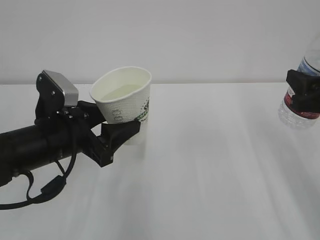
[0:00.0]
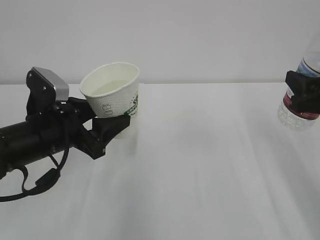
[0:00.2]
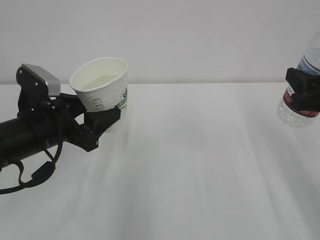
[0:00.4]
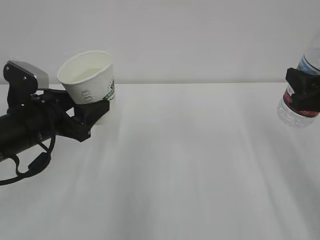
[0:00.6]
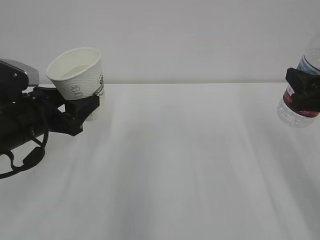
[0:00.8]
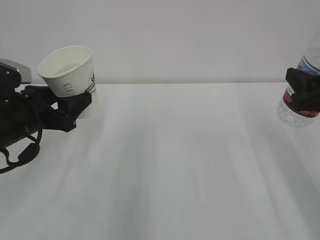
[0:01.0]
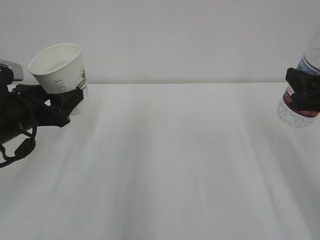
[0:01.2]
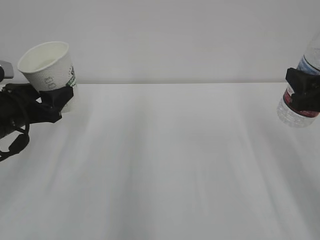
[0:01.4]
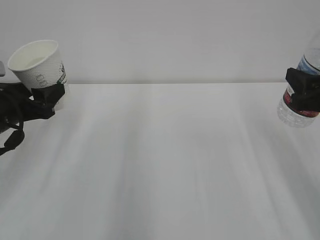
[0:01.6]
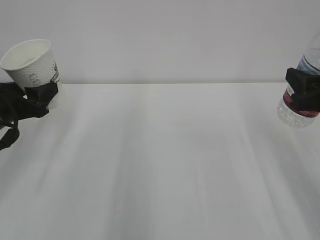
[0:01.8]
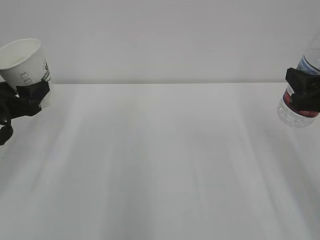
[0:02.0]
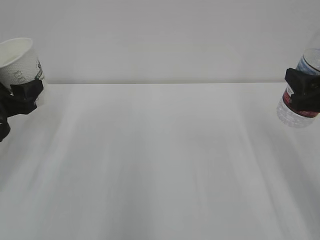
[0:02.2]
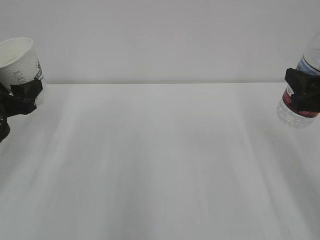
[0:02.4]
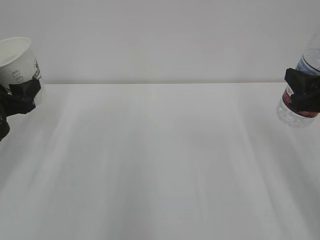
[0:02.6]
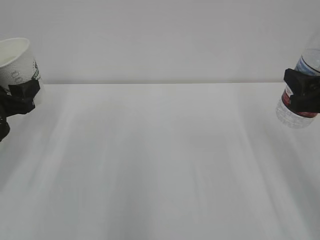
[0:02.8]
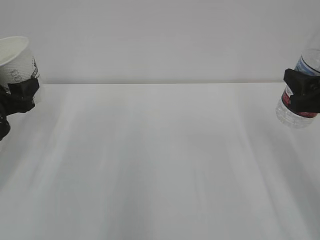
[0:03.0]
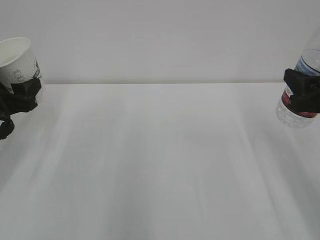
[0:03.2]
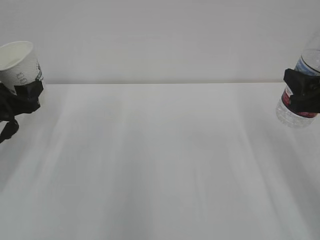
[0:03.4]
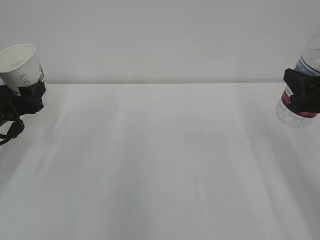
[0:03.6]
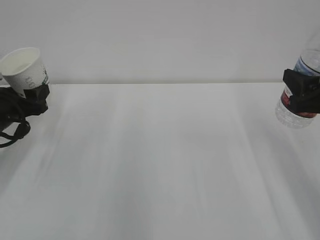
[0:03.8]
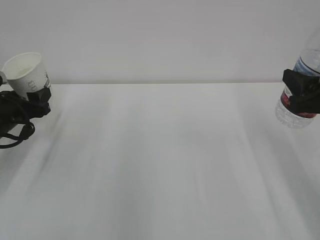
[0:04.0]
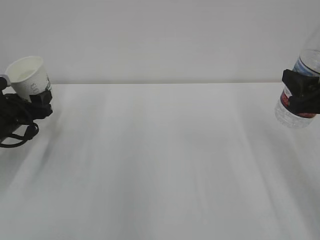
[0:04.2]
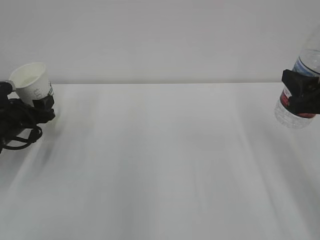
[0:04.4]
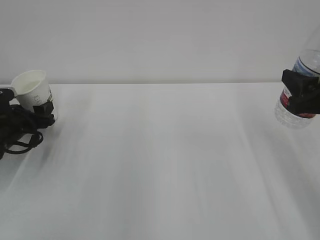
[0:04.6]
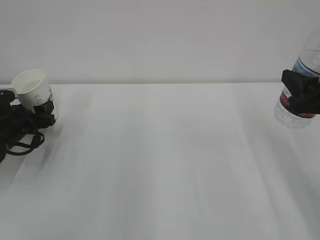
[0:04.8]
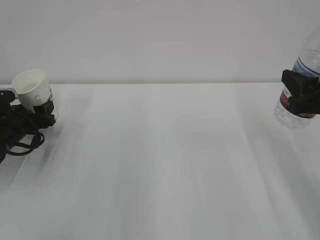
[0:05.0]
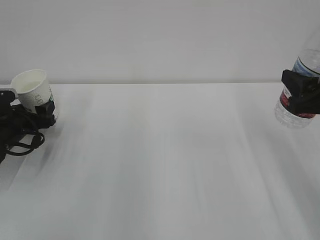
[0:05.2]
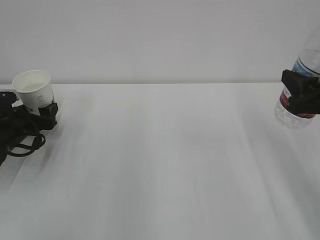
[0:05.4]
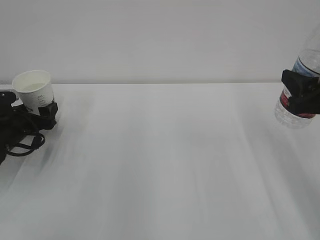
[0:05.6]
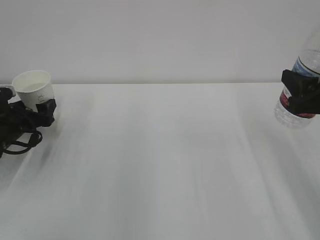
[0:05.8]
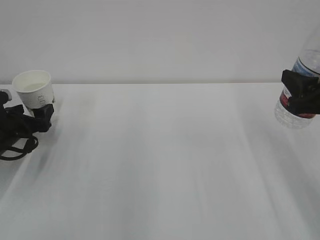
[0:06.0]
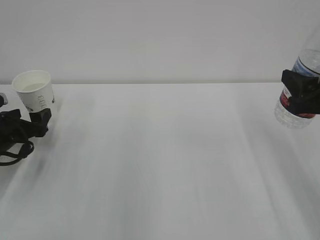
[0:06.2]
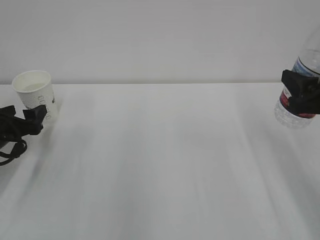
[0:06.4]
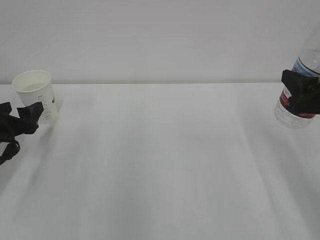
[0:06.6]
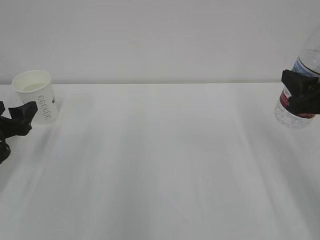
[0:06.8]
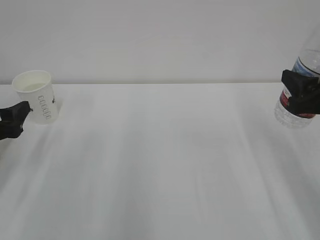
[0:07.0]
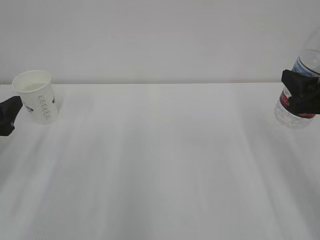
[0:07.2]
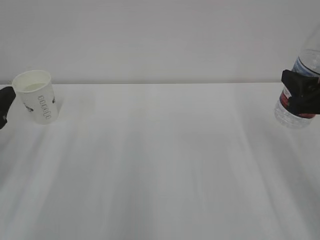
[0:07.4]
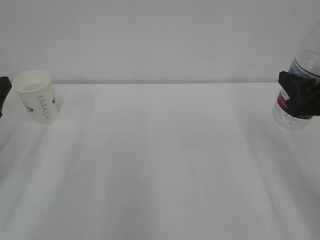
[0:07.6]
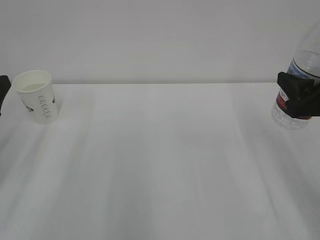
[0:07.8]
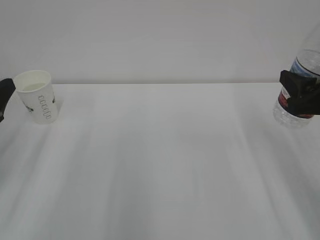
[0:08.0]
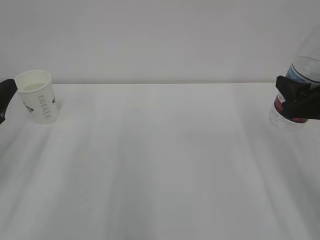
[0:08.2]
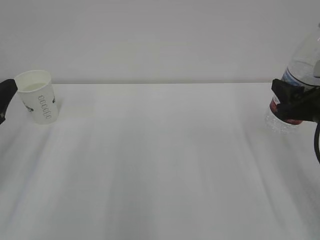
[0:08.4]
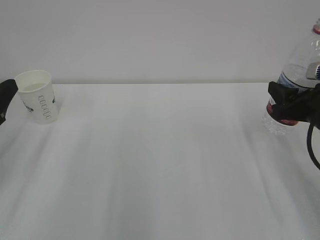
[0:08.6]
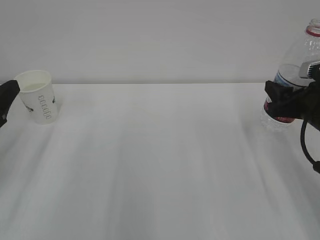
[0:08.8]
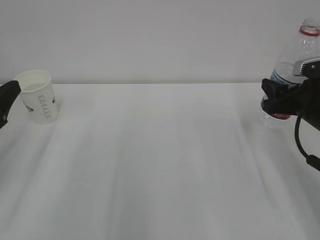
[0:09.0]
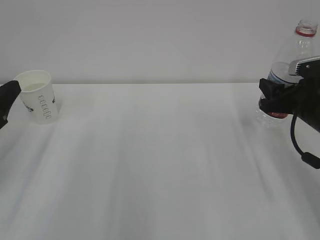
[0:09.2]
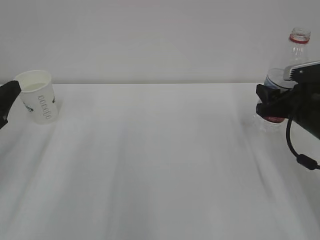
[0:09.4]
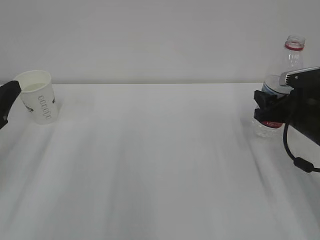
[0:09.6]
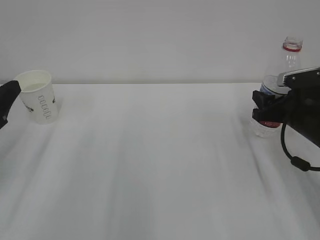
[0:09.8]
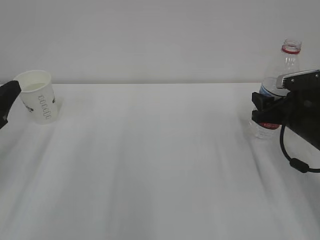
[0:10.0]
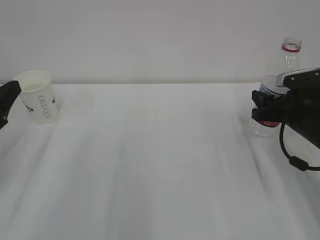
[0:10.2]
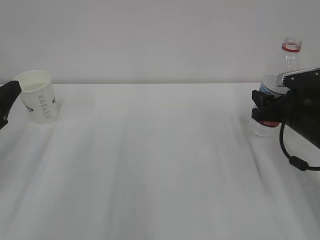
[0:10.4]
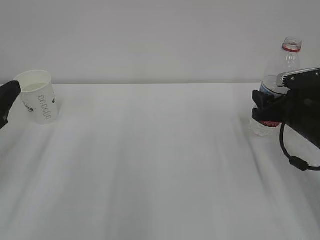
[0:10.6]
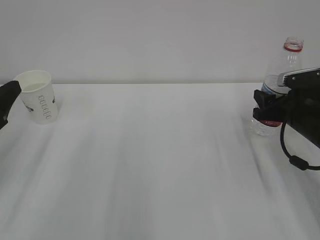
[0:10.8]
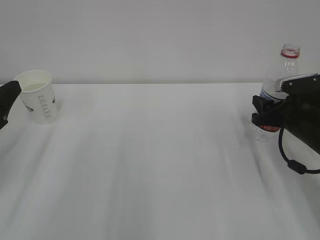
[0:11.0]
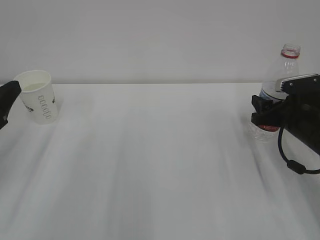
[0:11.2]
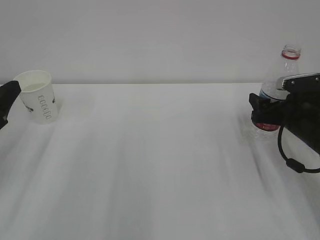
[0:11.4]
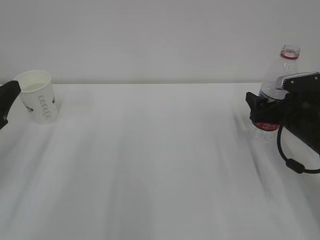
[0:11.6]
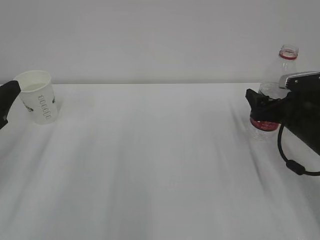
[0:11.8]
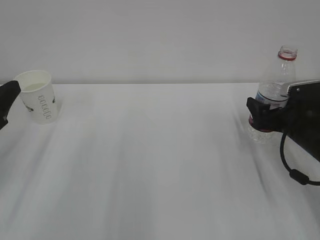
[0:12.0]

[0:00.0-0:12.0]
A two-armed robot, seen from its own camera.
0:00.0 to 0:01.6: The left gripper shifts approximately 10 cm to the left.
0:01.6 to 0:03.0: There are only small adjustments of the grippers.
0:03.0 to 0:04.4: The left gripper is displaced downward and forward by approximately 10 cm.
0:04.4 to 0:06.0: The left gripper opens its fingers.
0:06.0 to 0:07.6: The left gripper goes roughly 15 cm backward and upward.
0:07.6 to 0:09.0: The right gripper goes approximately 10 cm forward and downward.
0:09.0 to 0:10.4: The grippers make only small movements.
0:10.4 to 0:12.0: The right gripper opens.

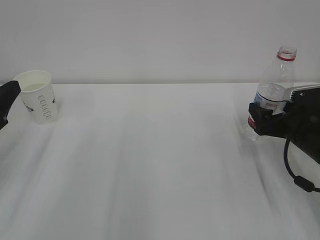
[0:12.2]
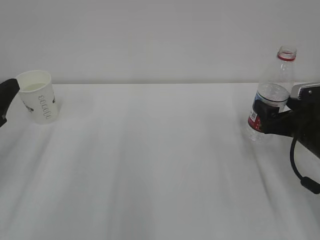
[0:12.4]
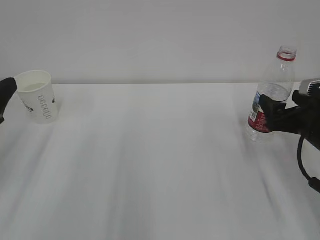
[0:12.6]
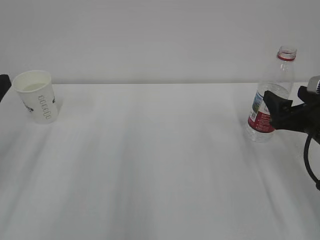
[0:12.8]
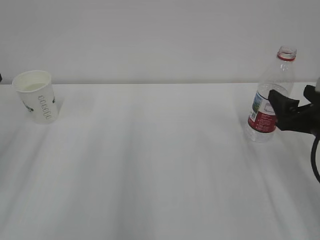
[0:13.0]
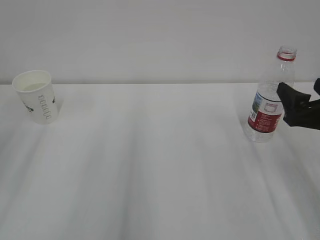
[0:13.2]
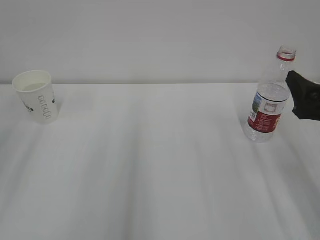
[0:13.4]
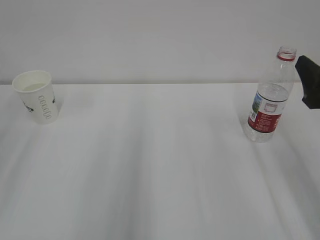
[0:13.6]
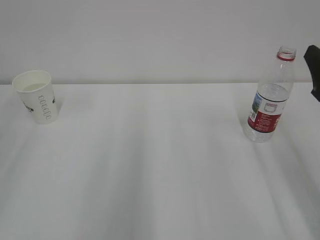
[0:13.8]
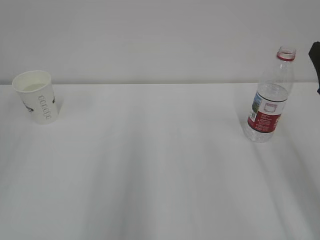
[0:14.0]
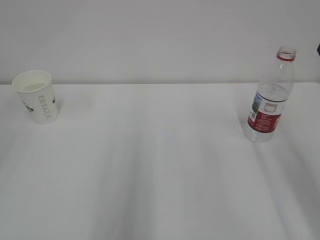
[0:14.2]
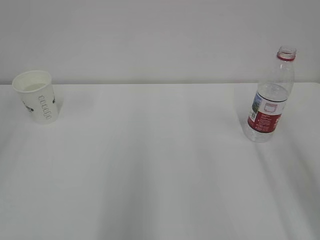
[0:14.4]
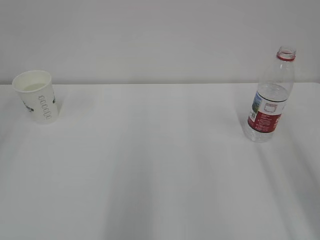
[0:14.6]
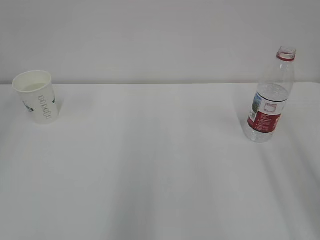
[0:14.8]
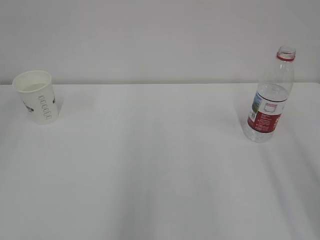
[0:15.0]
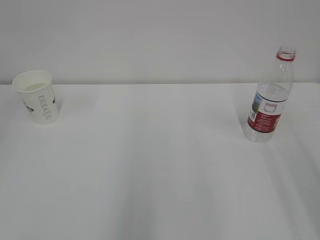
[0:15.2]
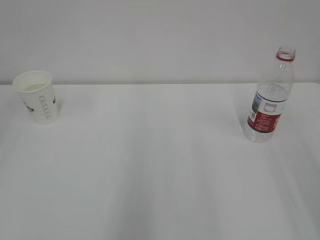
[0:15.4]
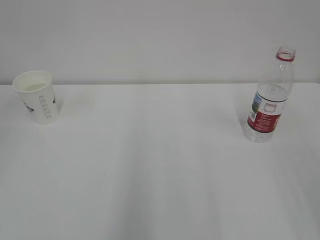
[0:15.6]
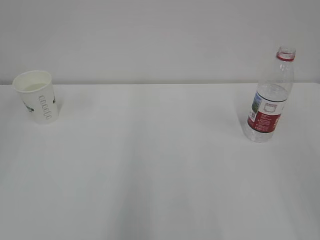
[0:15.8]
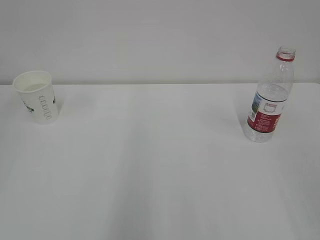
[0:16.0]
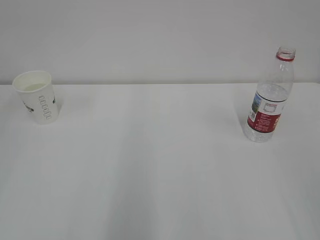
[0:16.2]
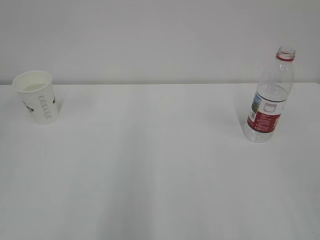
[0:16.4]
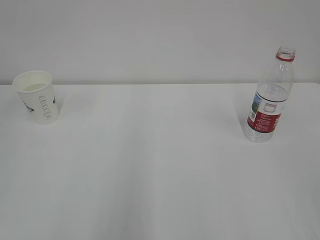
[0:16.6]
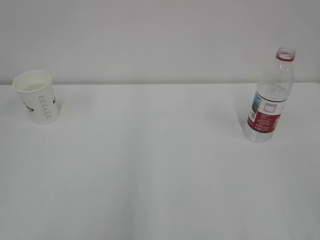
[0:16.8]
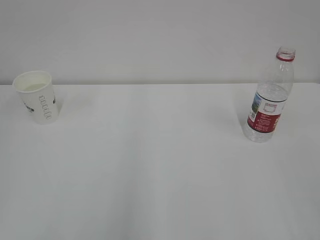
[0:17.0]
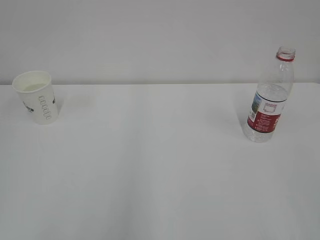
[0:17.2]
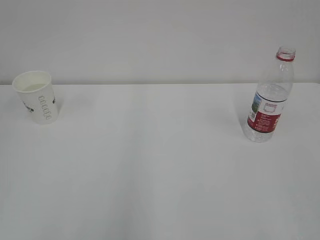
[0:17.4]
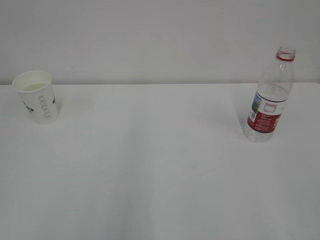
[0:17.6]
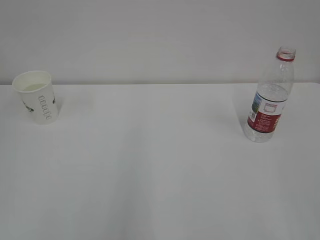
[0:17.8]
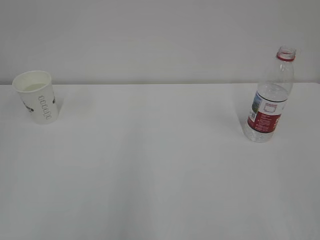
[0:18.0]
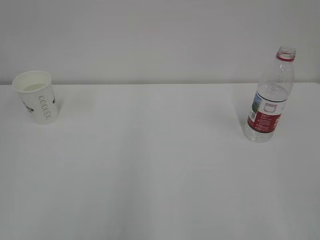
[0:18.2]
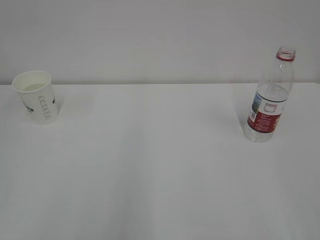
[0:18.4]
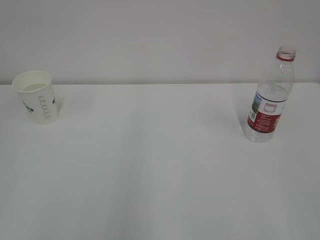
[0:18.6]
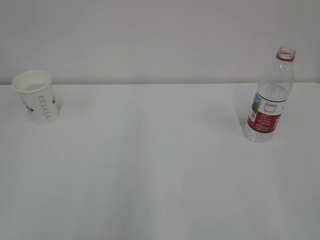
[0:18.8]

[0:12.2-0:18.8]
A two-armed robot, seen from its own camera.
0:12.2 to 0:13.8: The left gripper goes about 15 cm backward and upward; the right gripper shifts some 15 cm upward and backward.
0:13.8 to 0:15.4: The right gripper goes about 15 cm backward and upward.
0:17.2 to 0:18.8: The two grippers keep their place.
